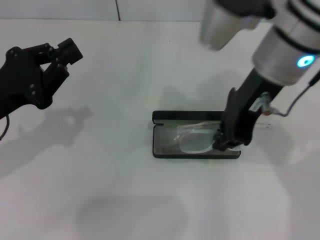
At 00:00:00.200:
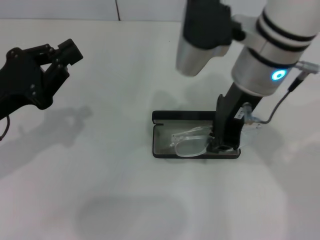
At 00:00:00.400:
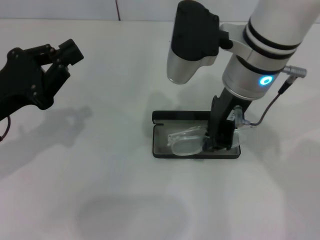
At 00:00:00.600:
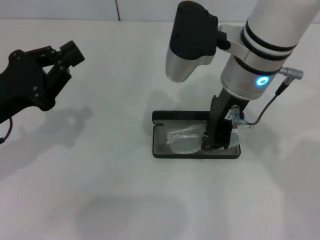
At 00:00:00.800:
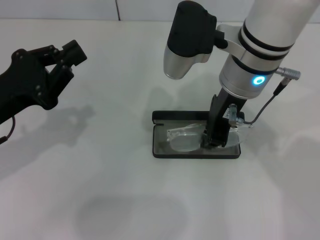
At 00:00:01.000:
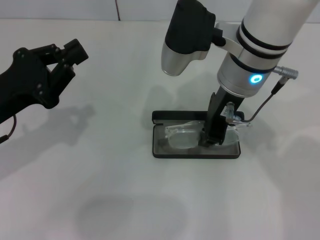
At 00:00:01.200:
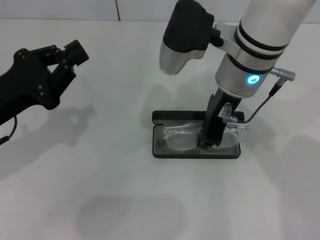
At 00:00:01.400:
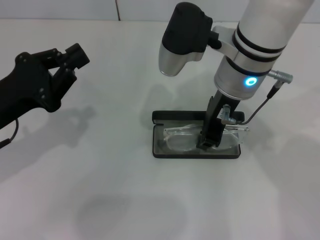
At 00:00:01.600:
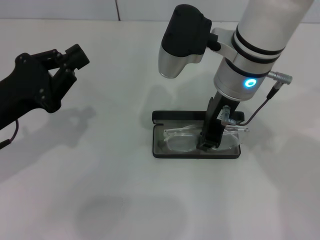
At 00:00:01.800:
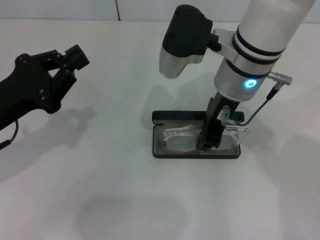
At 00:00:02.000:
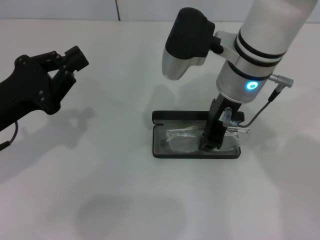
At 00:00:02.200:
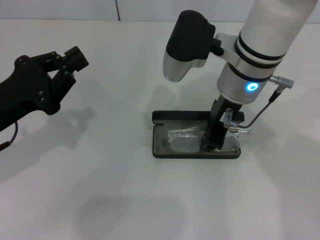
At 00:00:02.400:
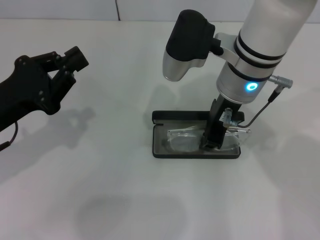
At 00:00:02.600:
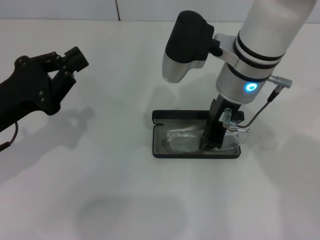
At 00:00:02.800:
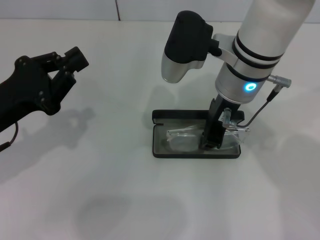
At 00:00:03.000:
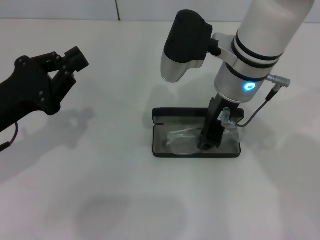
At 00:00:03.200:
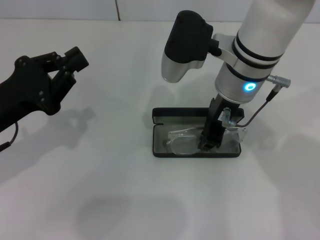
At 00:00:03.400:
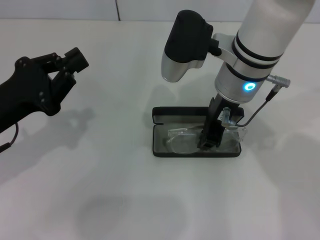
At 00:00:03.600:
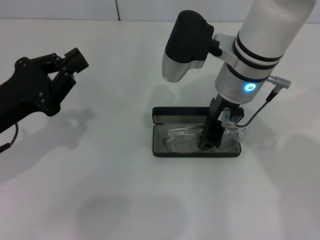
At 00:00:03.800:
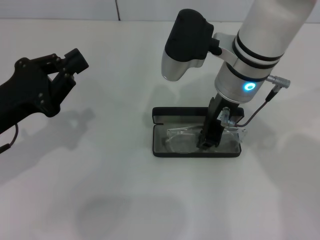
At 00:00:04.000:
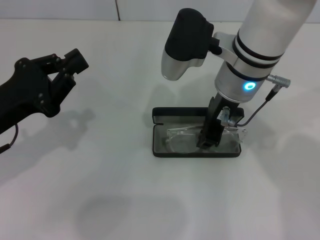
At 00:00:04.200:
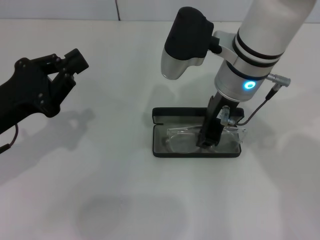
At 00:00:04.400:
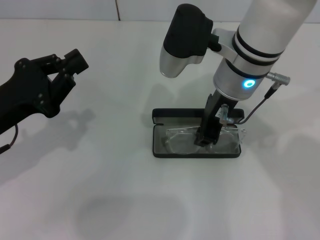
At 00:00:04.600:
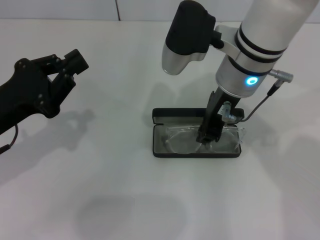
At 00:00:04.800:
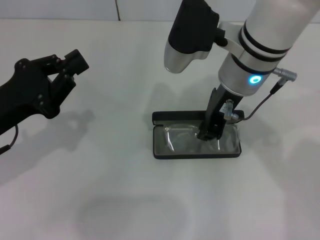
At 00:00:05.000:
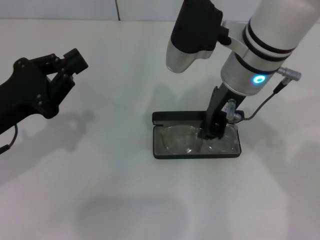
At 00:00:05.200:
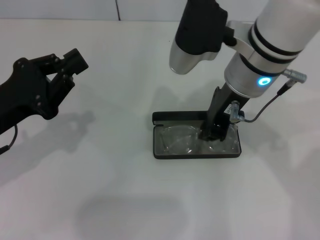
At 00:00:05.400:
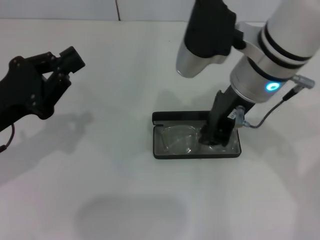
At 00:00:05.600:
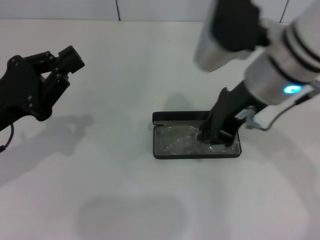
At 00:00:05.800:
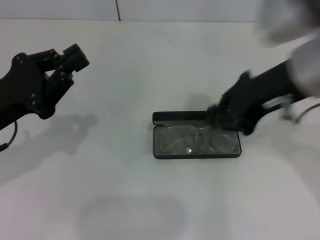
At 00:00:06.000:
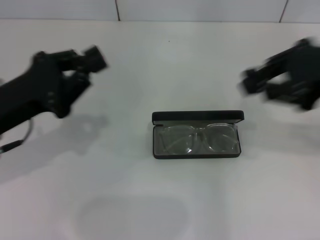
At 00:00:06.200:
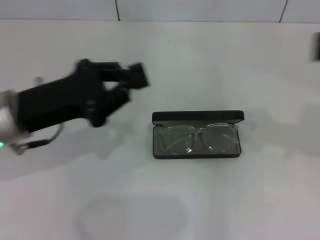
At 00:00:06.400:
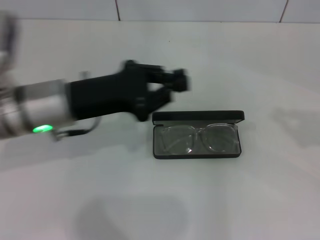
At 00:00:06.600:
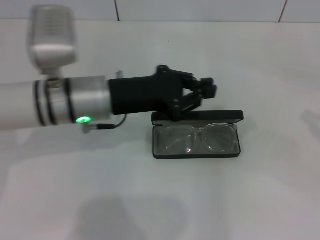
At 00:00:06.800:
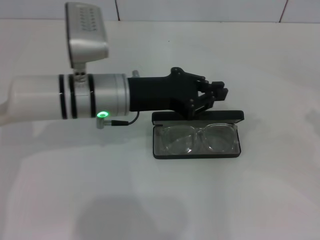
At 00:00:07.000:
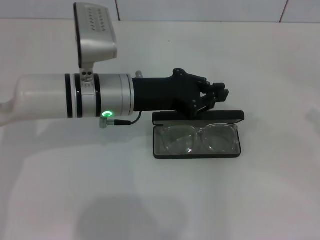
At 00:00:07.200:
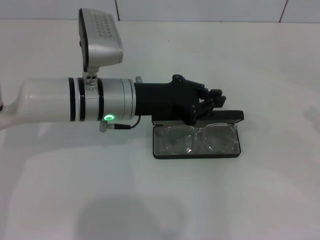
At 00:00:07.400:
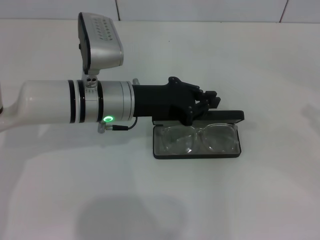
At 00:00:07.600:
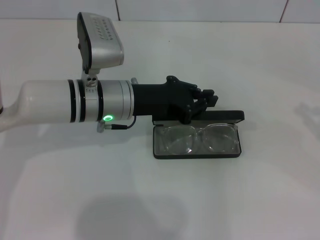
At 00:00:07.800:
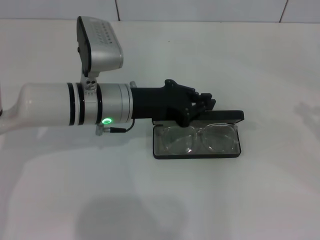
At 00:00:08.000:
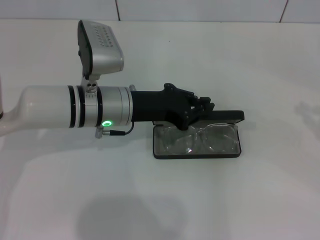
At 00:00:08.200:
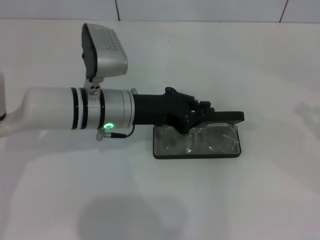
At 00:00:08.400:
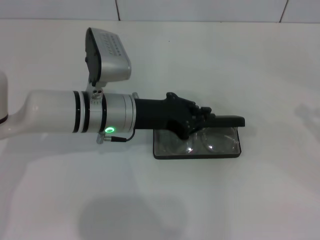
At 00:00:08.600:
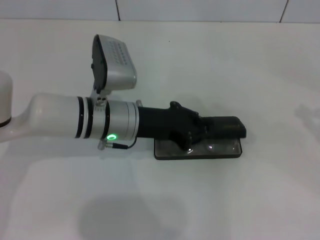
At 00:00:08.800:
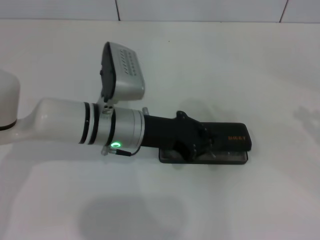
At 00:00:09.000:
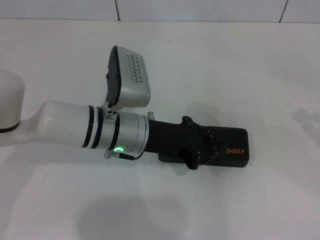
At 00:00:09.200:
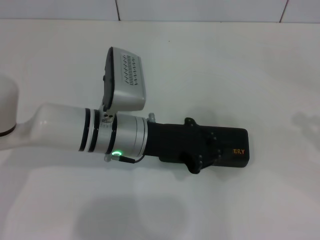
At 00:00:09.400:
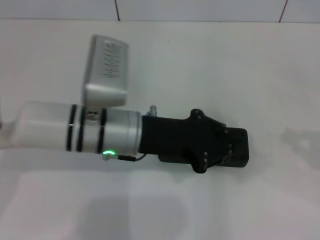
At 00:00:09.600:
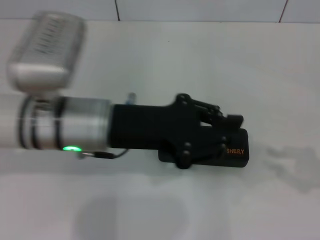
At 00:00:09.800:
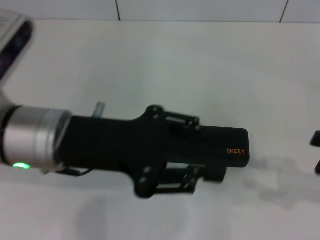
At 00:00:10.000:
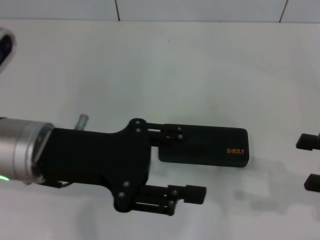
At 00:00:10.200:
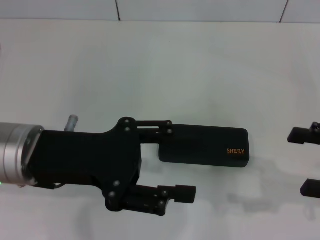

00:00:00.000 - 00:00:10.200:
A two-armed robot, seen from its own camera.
Step, 00:00:00.000 - 00:00:05.000: Put the glasses into the case with your right hand.
Step, 00:00:05.200 - 00:00:08.800: Close the glasses case with your left hand.
00:00:00.000 - 00:00:01.400: The right gripper heads downward, covering roughly 5 cm.
00:00:01.400 - 00:00:03.000: Both grippers stay put.
00:00:03.000 - 00:00:04.400: The two grippers keep their place.
00:00:04.400 - 00:00:05.800: The right gripper travels to the right, backward and upward by some 15 cm.
00:00:05.800 - 00:00:07.200: The left gripper travels to the right and forward by approximately 20 cm; the right gripper heads to the right, covering approximately 25 cm.
00:00:07.200 - 00:00:08.800: The grippers stay close to where they were, moving slightly.
00:00:08.800 - 00:00:10.200: The left gripper is displaced upward, to the left and backward by some 15 cm, and opens up. Meanwhile the right gripper is displaced to the left by about 10 cm, and opens its fingers.

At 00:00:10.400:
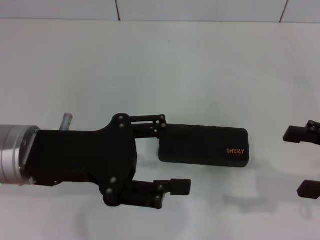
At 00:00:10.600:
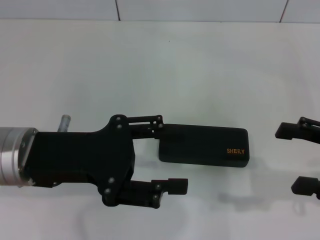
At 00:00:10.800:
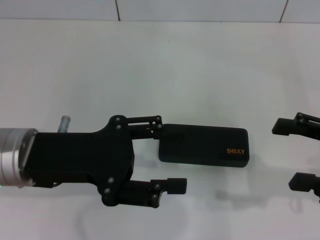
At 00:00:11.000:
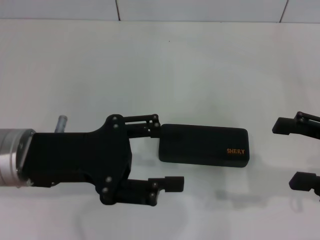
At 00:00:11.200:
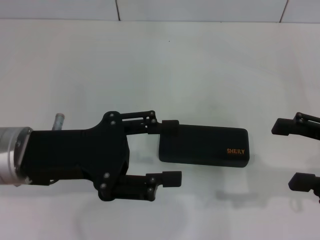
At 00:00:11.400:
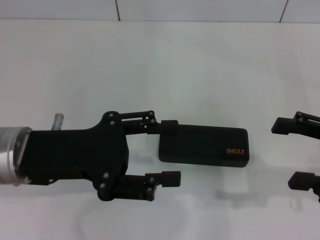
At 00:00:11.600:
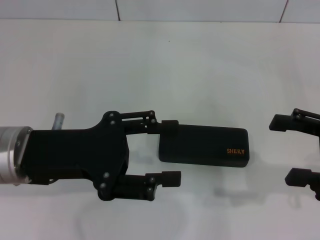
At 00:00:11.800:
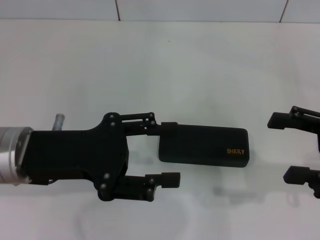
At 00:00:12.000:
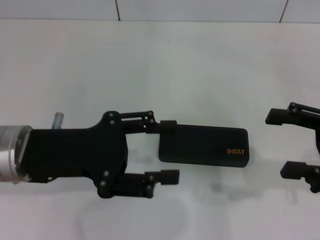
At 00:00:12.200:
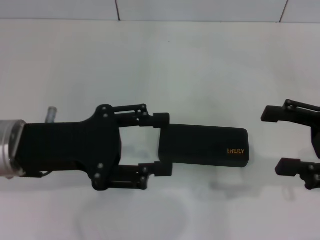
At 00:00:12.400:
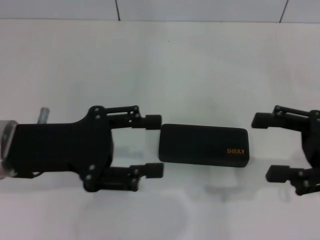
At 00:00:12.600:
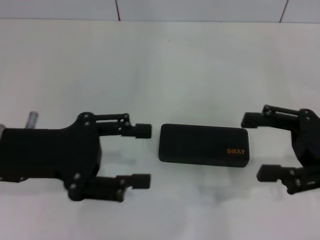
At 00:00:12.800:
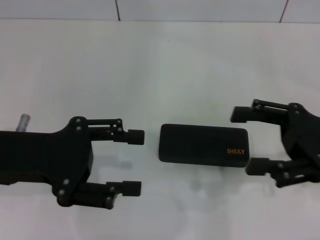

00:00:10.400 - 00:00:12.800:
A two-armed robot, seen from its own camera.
00:00:10.400 - 00:00:11.600: The grippers stay close to where they were, moving slightly.
00:00:11.600 - 00:00:12.800: The grippers stay close to where they were, moving slightly.
